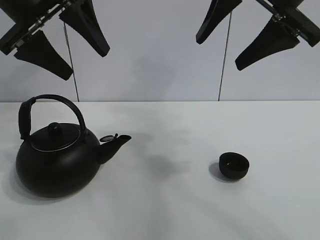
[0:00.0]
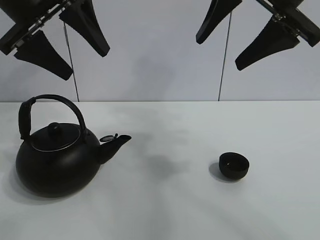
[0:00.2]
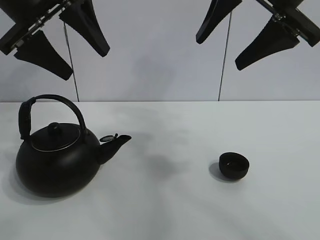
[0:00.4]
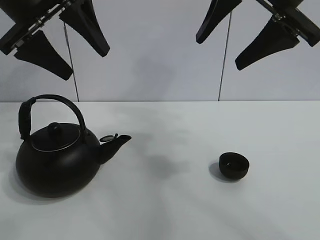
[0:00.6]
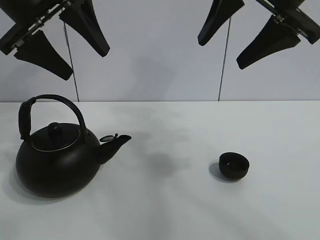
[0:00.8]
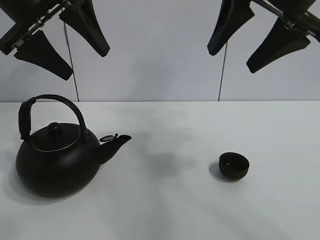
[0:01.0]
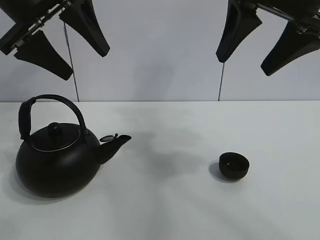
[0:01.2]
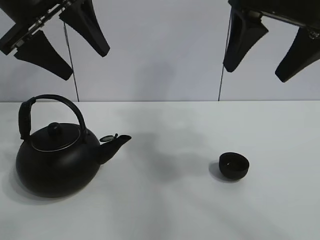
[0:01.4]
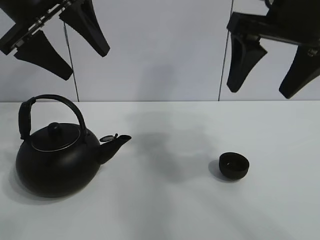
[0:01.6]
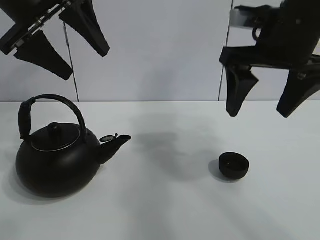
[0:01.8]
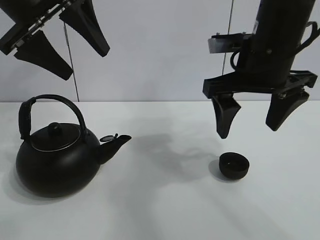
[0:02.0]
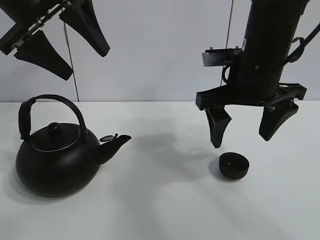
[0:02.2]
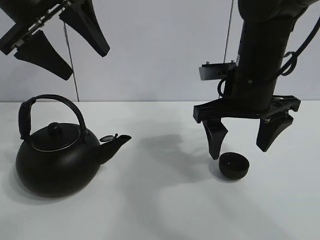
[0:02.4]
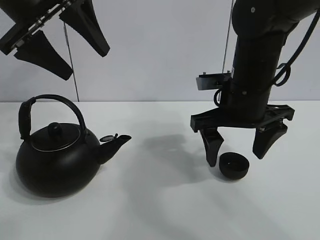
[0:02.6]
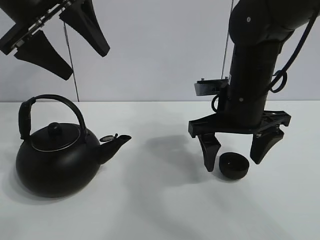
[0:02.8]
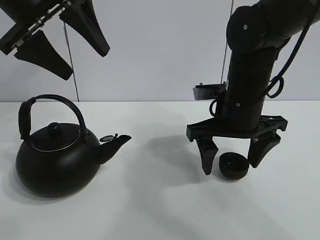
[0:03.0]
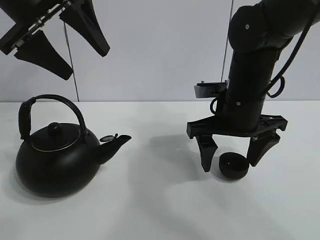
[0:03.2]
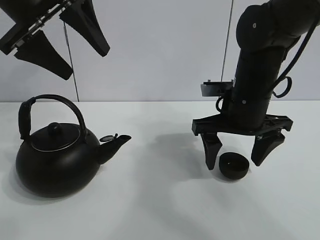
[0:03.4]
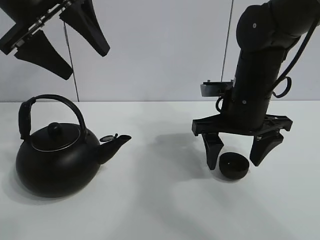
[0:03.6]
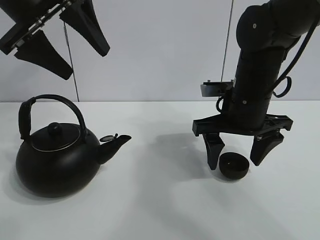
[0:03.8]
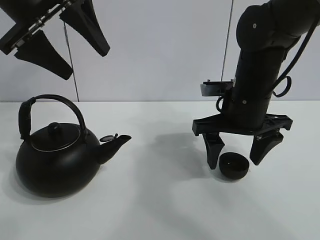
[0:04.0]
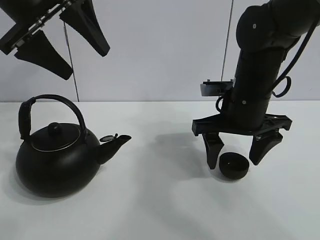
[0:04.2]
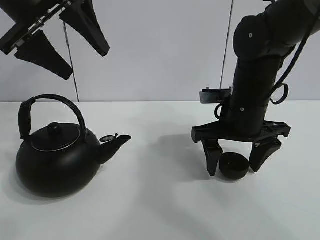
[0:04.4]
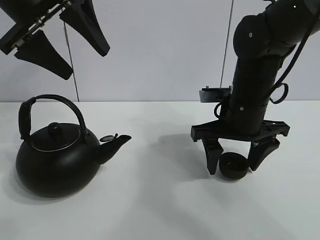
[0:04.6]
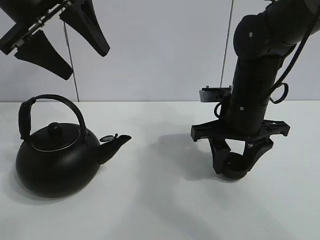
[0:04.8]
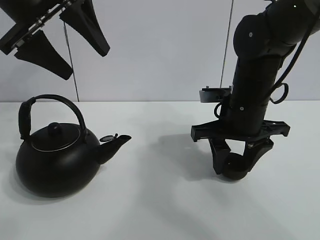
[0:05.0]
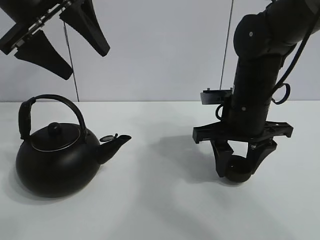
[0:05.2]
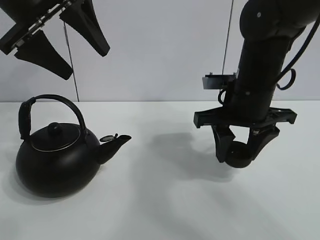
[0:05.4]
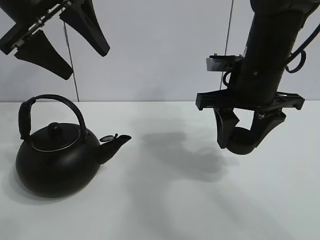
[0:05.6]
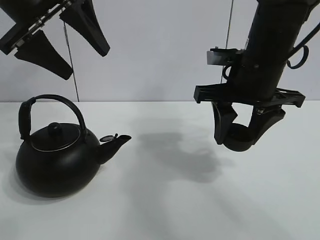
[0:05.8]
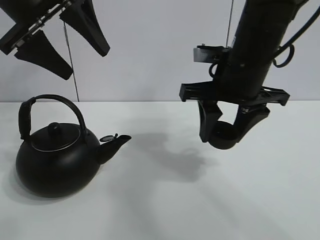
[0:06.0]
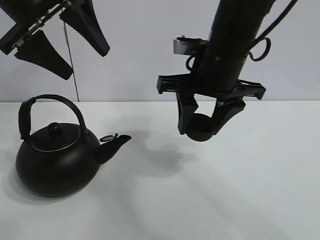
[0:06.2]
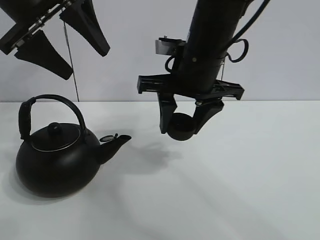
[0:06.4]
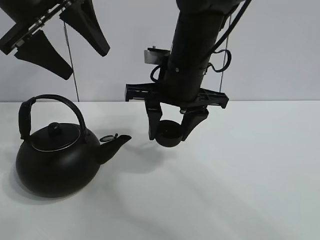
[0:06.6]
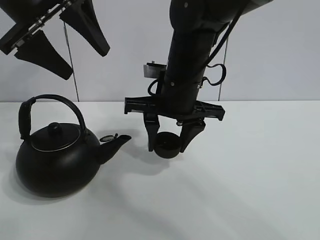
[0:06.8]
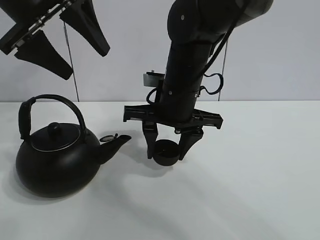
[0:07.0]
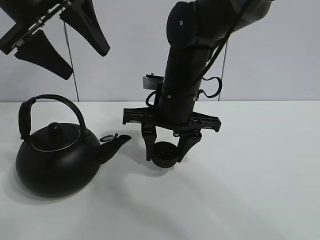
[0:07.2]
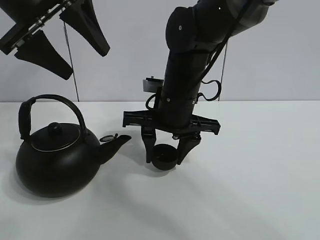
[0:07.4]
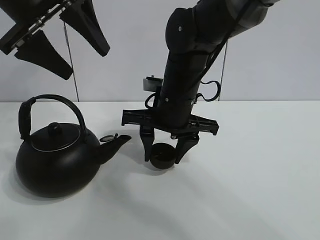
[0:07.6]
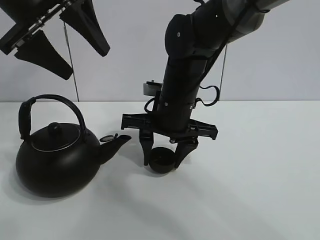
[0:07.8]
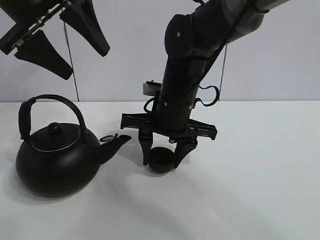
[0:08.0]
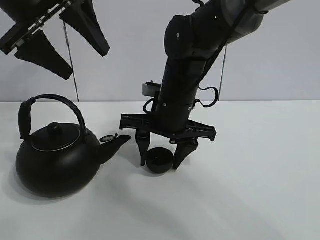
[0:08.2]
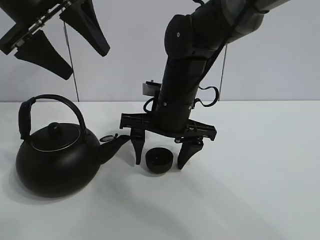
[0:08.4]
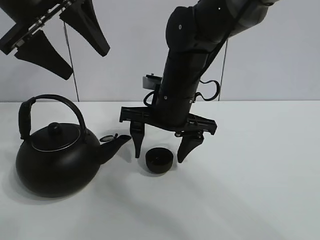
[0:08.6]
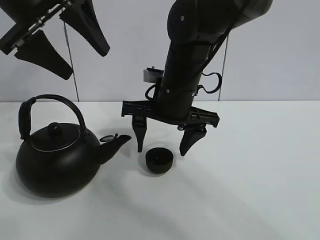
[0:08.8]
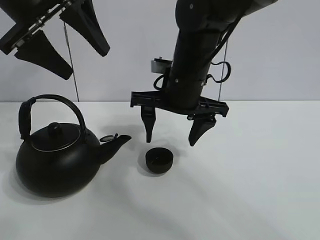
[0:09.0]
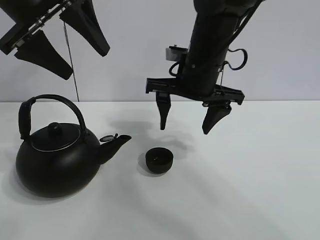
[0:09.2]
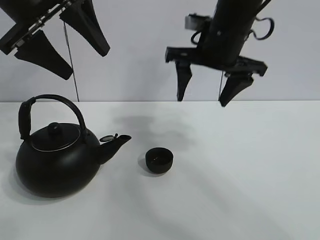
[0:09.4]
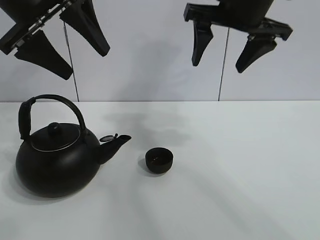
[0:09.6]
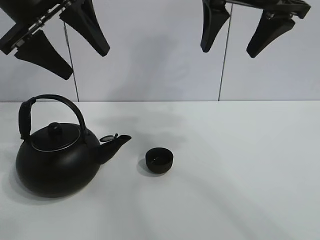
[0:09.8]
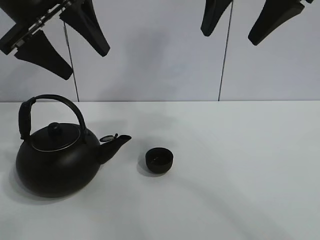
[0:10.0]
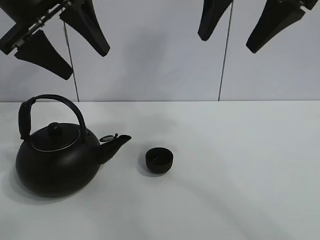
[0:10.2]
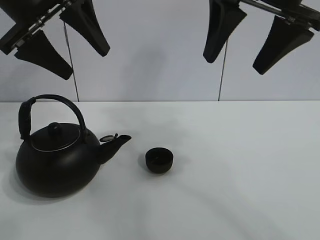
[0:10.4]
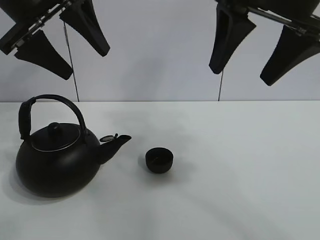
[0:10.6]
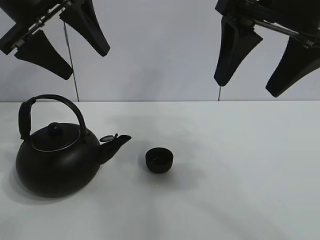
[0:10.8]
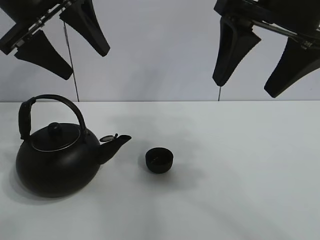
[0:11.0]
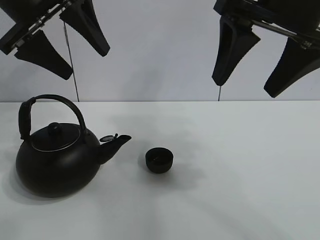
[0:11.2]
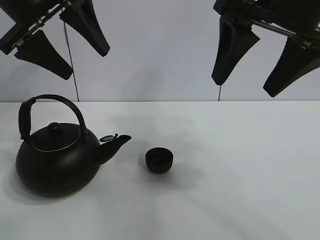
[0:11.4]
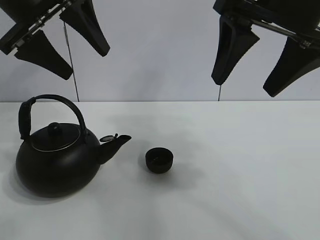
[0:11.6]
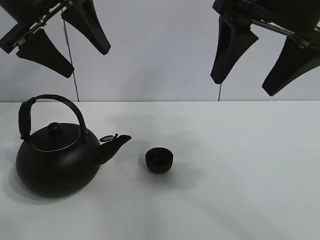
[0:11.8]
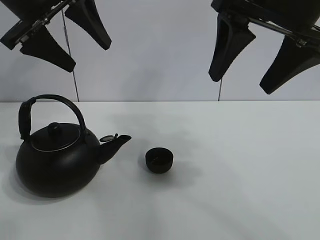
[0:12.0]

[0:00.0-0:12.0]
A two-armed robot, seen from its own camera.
Task of the whole recording: pour tea into the teacup.
Step, 0:00.0 to 0:05.2: Pick up the teacup with the right gripper.
Step, 0:05.4 to 0:08.4: Place the teacup in the center of view with the right gripper.
0:01.6 to 0:03.0: The right gripper moves downward, roughly 15 cm.
0:03.0 to 0:04.4: The grippers stay close to where they were, moving slightly.
0:04.4 to 0:06.0: The right gripper heads upward, covering some 5 cm, and closes its fingers.
0:06.0 to 0:07.6: The right gripper heads to the left and downward, covering about 10 cm.
0:07.6 to 0:09.0: The right gripper opens up.
0:09.0 to 0:10.4: The right gripper moves upward, to the right and backward, about 20 cm.
0:10.4 to 0:12.0: The grippers move only a little.

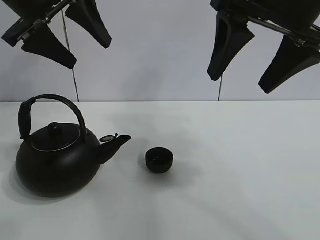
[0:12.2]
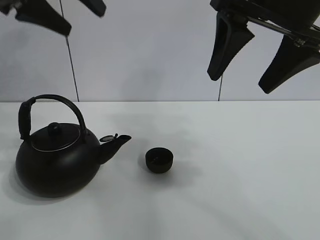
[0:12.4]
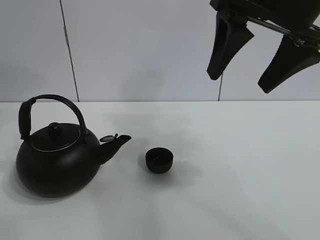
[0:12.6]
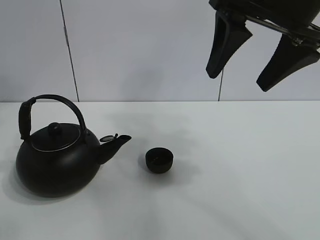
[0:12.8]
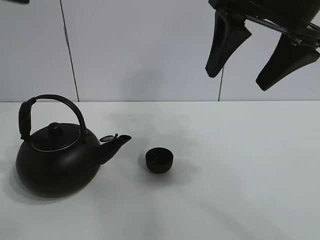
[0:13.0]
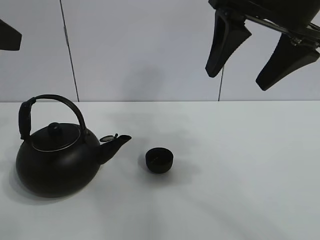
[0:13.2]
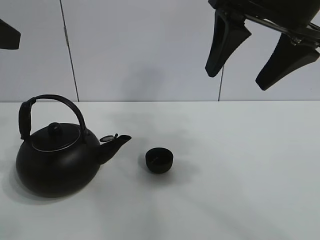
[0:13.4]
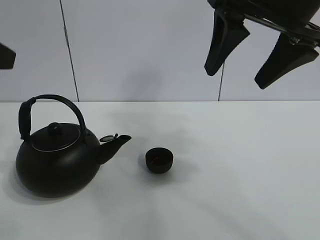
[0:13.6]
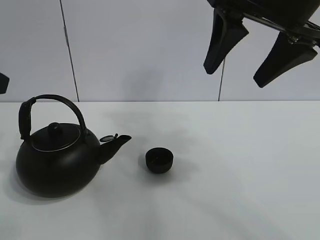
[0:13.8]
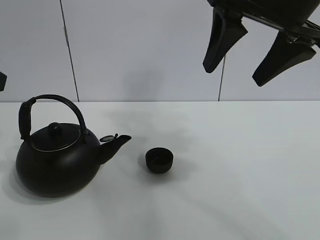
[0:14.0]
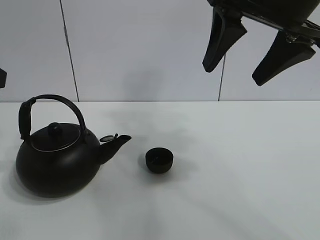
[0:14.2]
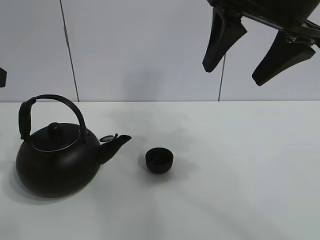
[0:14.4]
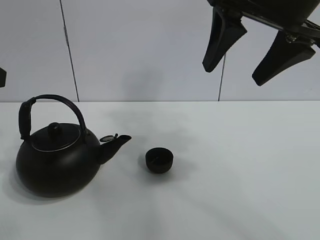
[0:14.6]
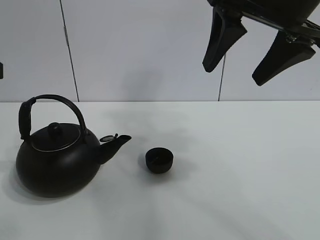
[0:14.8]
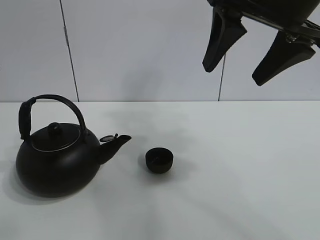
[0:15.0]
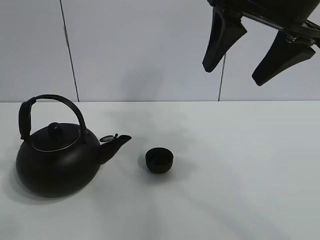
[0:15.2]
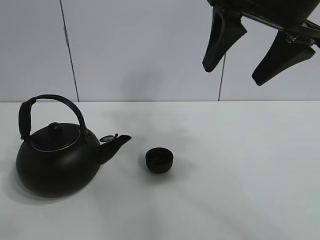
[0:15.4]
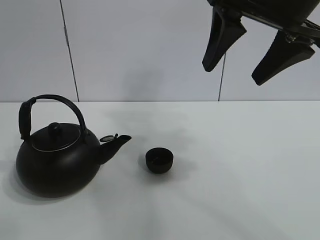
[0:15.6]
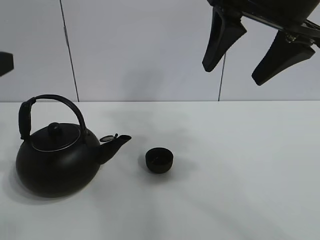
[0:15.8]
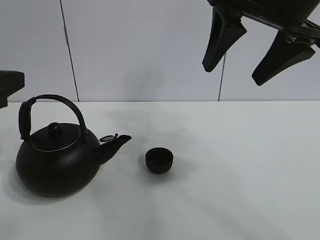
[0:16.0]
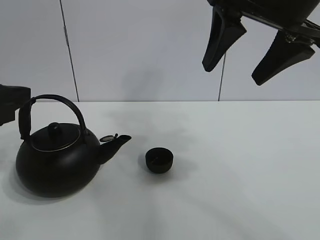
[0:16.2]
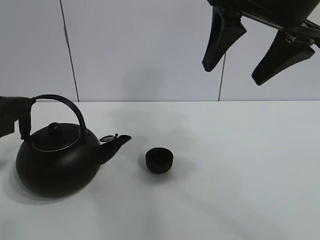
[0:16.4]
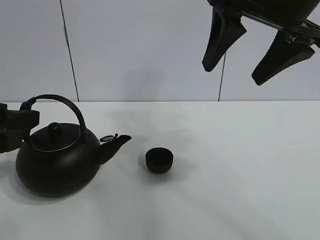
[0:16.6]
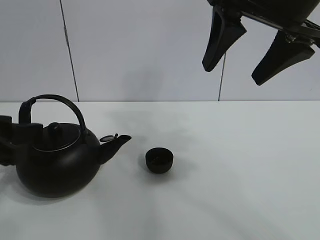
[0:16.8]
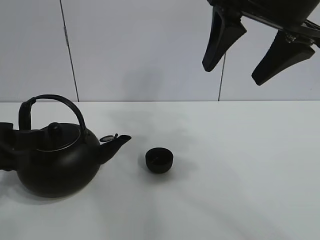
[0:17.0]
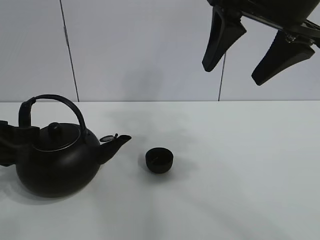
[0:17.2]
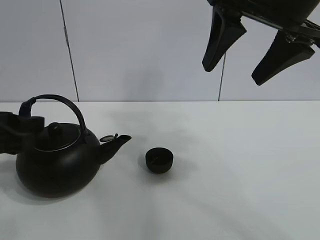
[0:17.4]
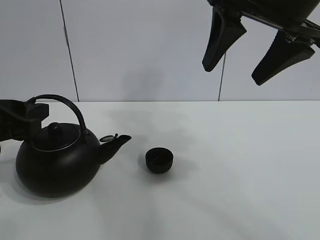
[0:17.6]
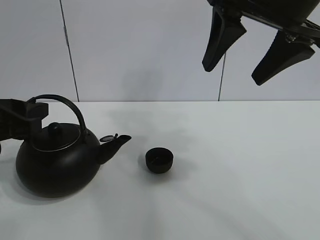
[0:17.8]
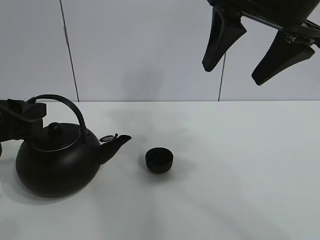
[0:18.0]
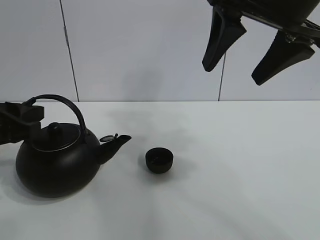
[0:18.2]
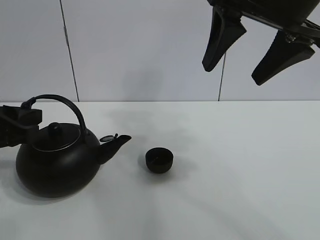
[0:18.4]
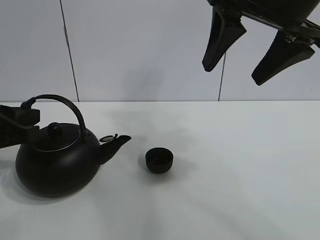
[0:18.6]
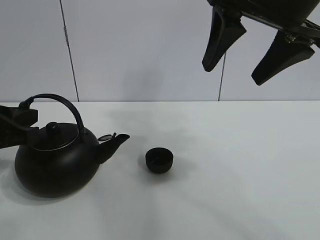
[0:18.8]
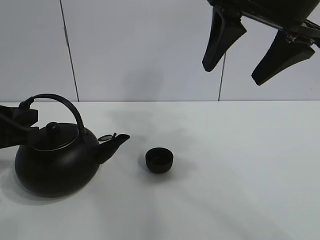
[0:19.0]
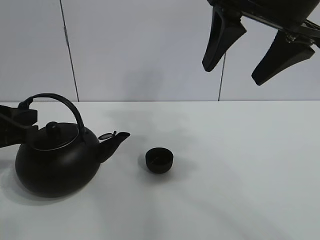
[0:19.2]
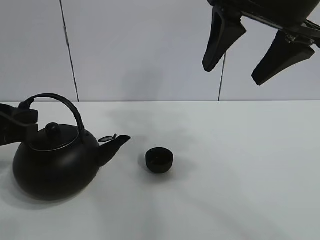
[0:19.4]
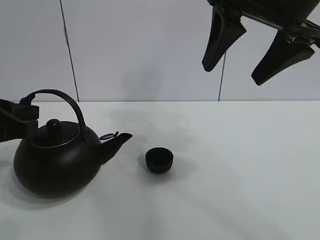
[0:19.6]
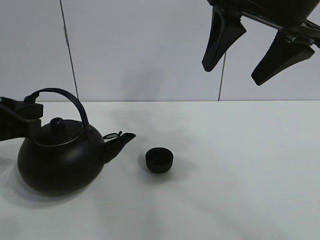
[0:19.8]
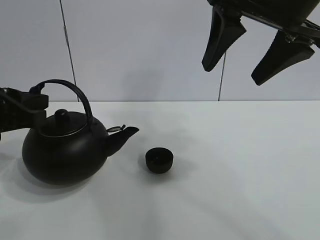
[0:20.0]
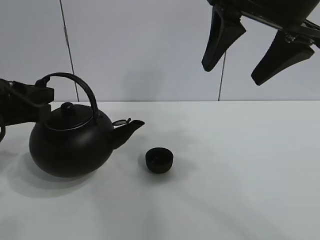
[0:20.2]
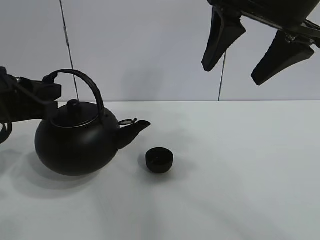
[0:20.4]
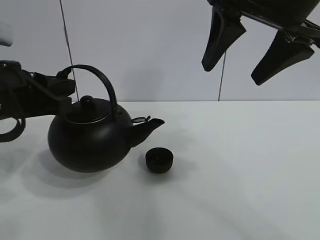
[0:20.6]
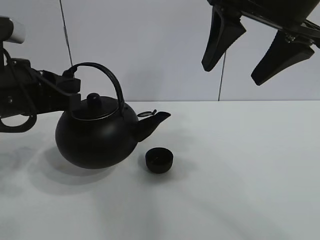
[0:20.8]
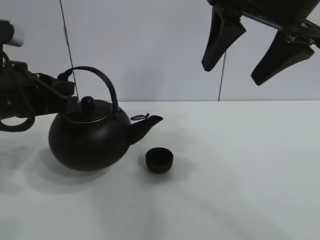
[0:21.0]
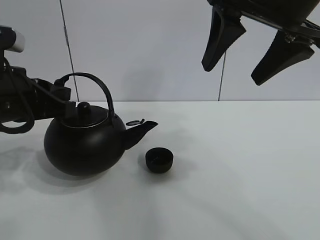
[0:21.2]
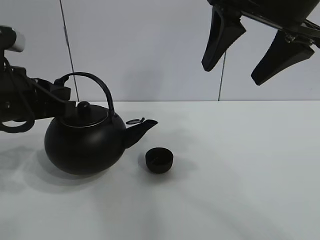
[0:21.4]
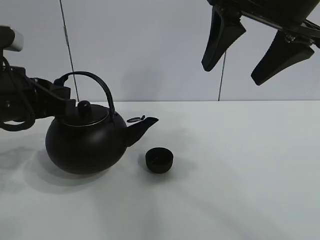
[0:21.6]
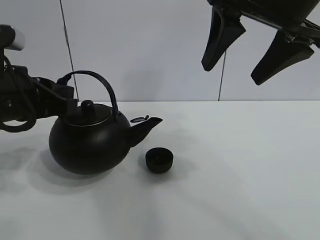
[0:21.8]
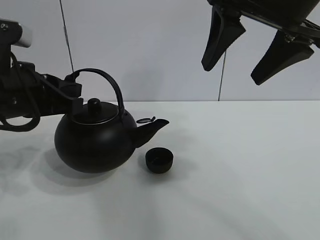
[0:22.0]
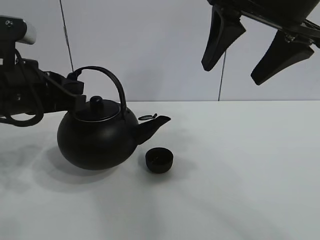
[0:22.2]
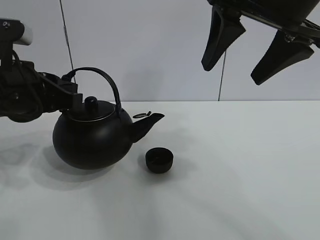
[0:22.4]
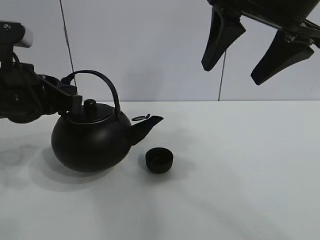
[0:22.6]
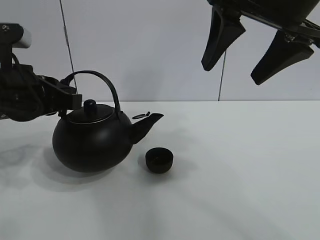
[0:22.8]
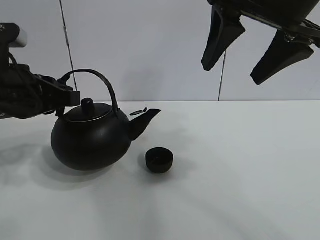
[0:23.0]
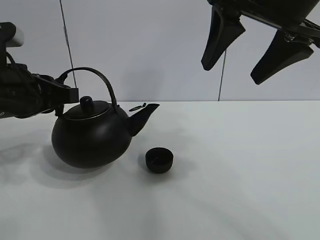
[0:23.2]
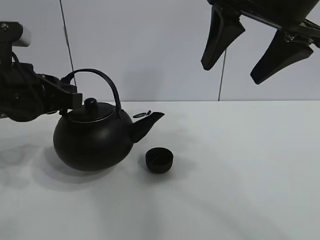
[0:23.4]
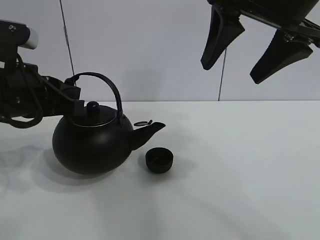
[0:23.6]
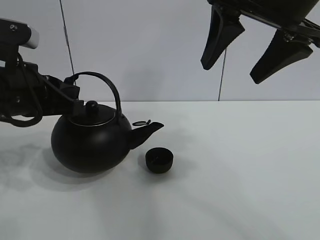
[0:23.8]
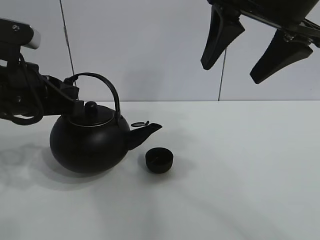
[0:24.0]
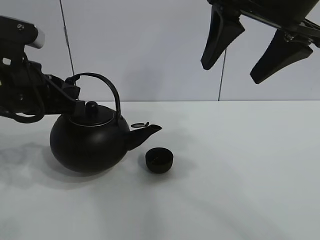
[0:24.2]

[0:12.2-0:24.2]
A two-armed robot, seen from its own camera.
Task of the whole recording: pour tea into the teacup.
Step, 0:12.2 to 0:20.0: Pick up the teapot with the left gripper.
0:12.2 to 0:13.8: The left gripper is displaced backward and to the left by some 15 cm.
0:15.2 to 0:16.6: The left gripper travels downward by some 10 cm.
0:18.2 to 0:19.8: The left gripper closes.
0:19.8 to 0:21.2: The left gripper shifts by about 5 cm.
0:21.2 to 0:24.2: The grippers stay close to where they were, moving slightly.
